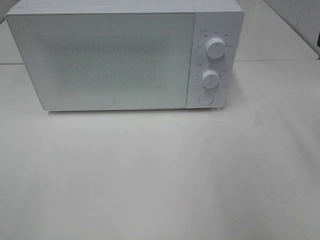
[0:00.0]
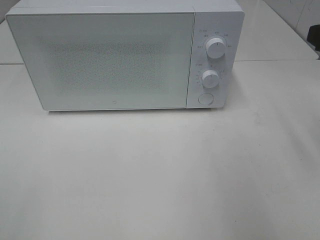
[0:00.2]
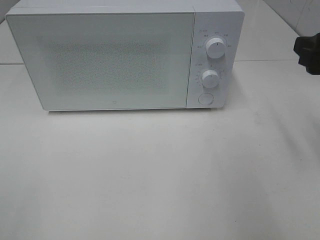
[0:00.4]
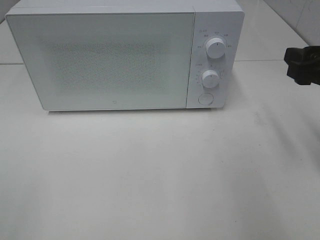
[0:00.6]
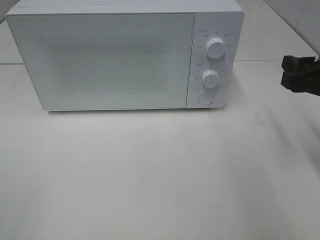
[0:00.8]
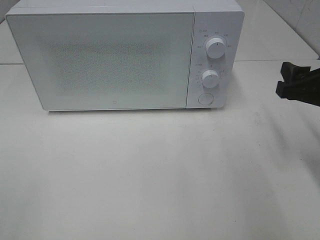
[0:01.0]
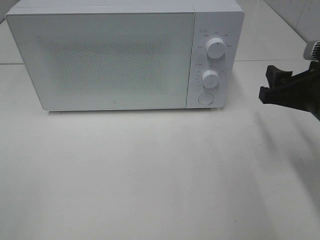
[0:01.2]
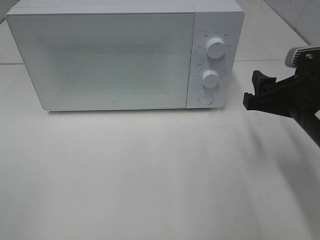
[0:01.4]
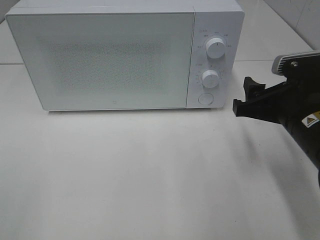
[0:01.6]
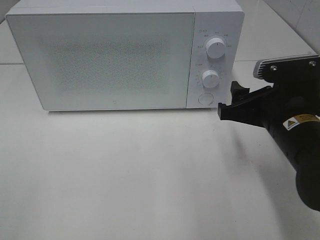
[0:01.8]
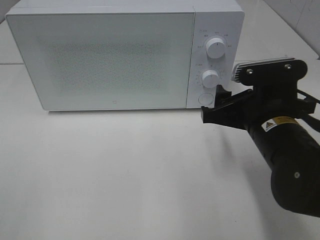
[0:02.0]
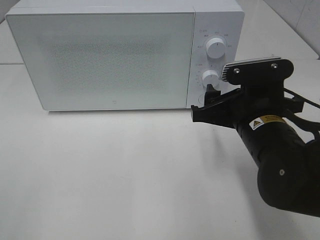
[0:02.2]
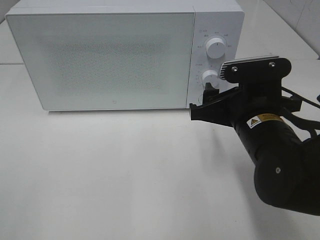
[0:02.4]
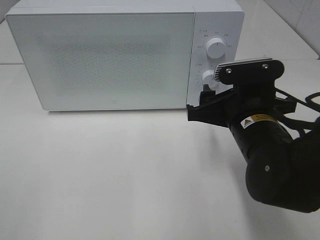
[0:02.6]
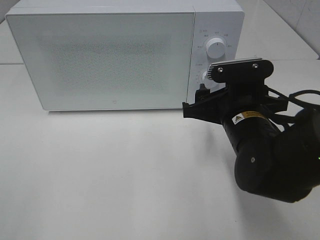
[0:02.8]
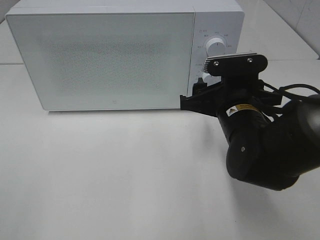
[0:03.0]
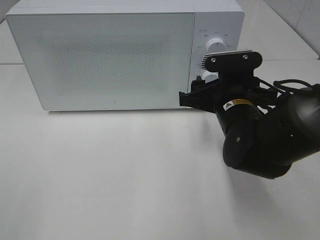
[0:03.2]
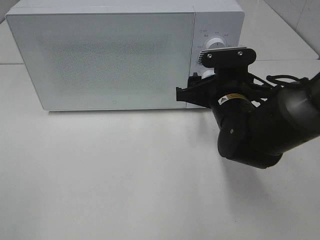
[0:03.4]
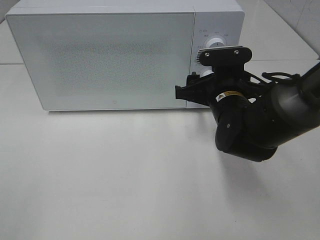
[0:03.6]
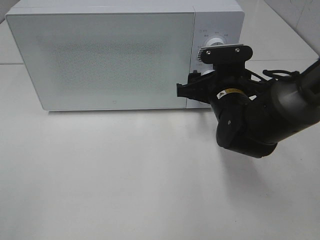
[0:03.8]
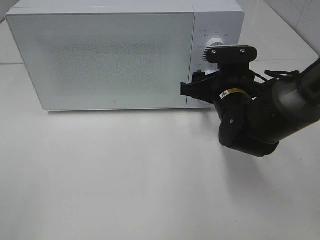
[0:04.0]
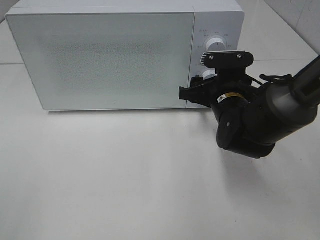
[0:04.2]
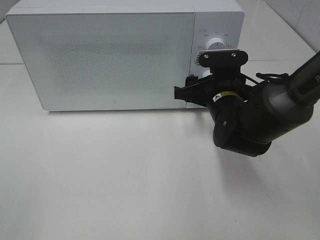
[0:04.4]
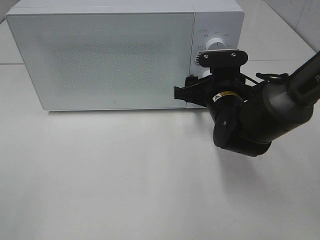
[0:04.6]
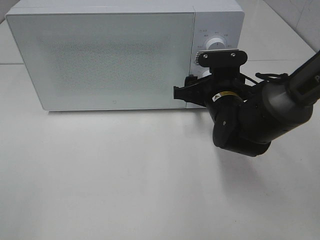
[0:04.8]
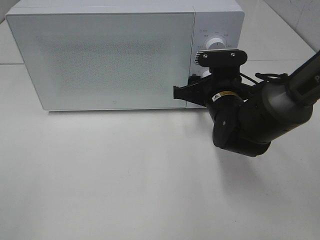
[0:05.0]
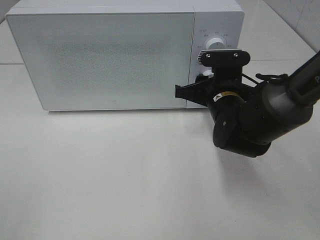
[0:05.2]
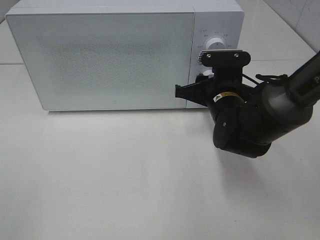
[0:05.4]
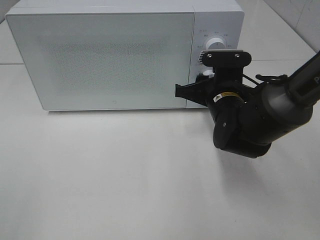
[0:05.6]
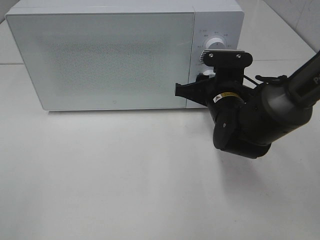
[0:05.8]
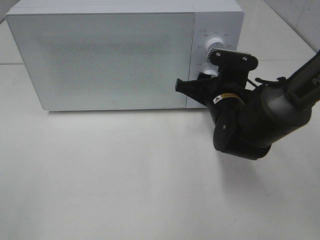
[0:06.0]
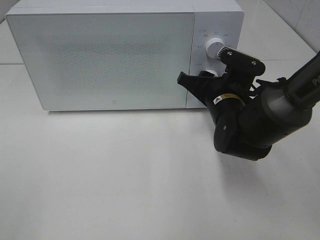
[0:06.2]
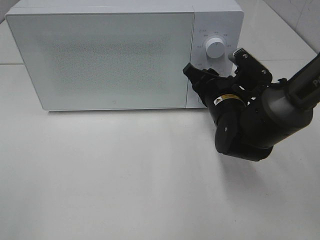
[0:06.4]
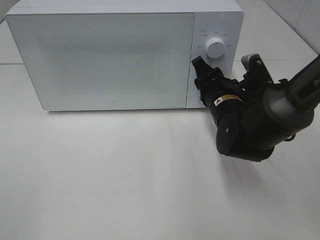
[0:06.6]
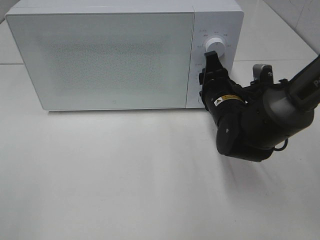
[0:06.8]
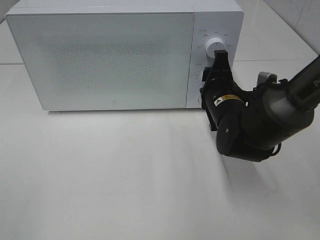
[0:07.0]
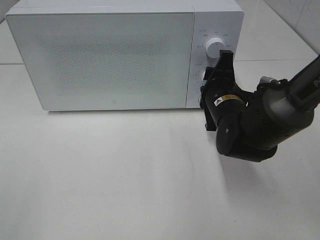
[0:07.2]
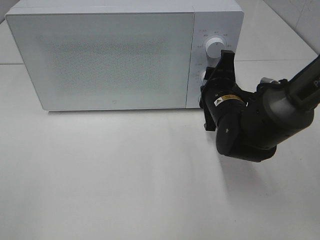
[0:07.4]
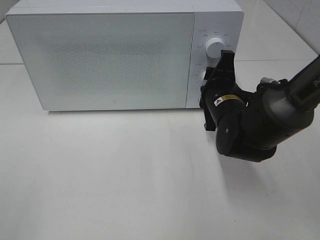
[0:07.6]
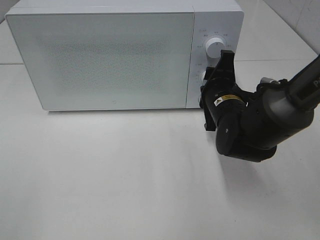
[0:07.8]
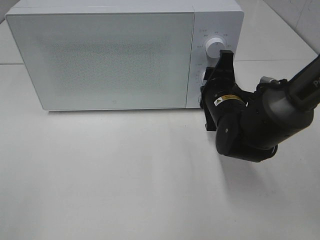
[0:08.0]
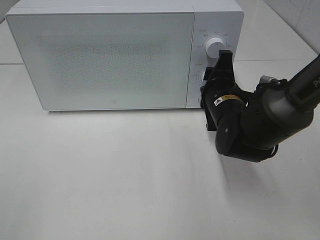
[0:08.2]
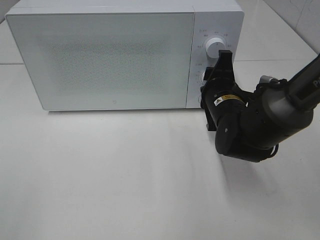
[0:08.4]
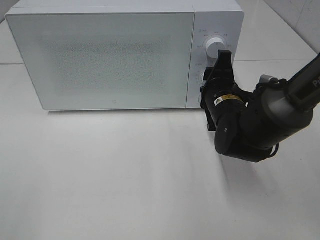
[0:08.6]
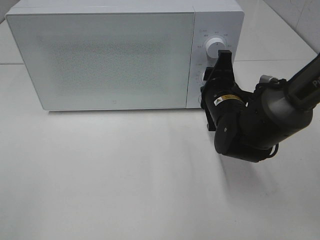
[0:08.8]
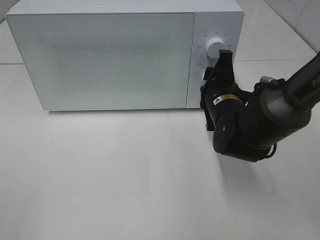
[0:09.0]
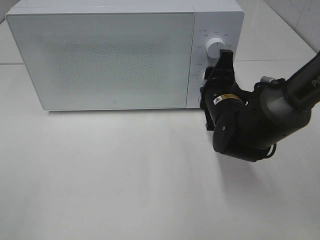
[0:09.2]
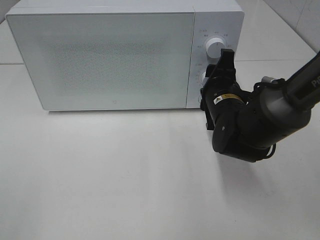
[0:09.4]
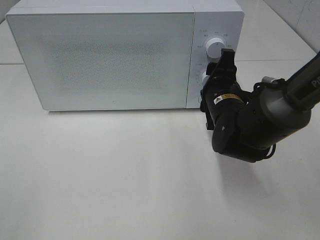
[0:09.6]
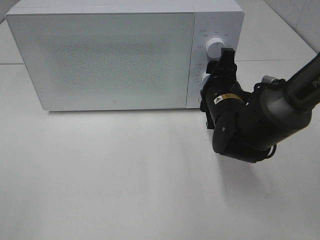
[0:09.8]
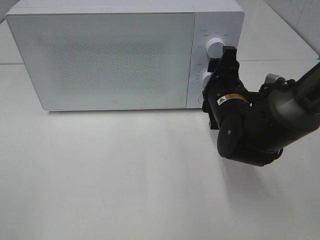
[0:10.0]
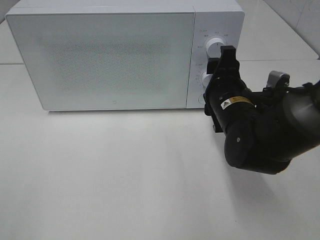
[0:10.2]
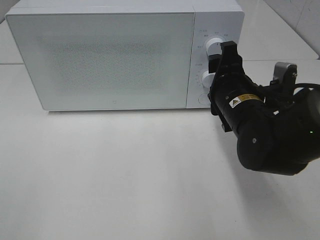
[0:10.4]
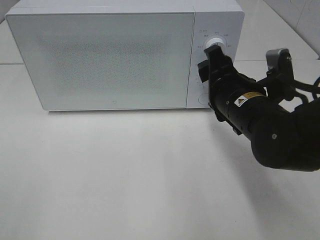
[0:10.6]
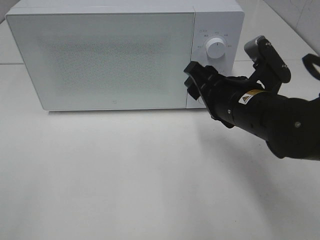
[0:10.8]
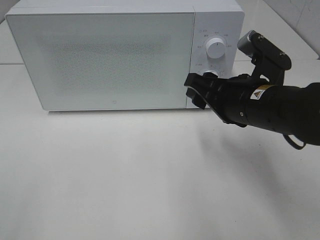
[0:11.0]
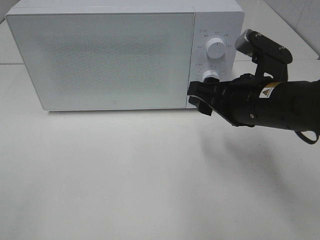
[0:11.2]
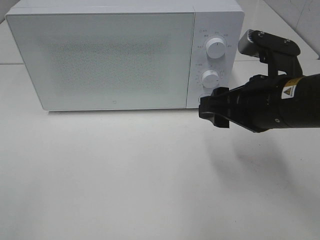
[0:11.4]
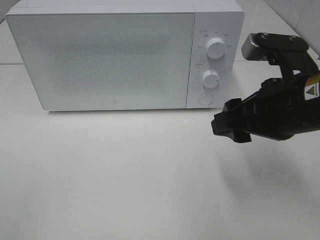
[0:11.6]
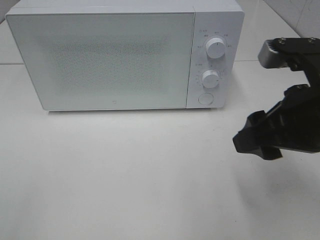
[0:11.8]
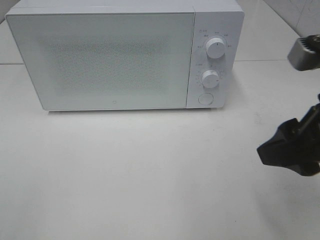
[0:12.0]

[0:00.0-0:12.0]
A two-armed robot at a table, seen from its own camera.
Task of the whole recording: Heat the burger.
Step, 0:00.0 to 0:09.4: Right hand: twist timer button.
0:00.0 to 0:01.6: The right gripper heads downward and to the left, covering about 15 cm.
0:01.6 to 0:03.0: The right gripper is displaced to the left by roughly 5 cm.
0:03.0 to 0:04.4: The right gripper goes about 5 cm forward.
0:04.4 to 0:06.0: The grippers stay close to where they were, moving slightly.
0:07.6 to 0:09.0: Both grippers stay put.
0:09.0 to 0:10.4: The right gripper moves roughly 5 cm.
0:10.4 to 0:12.0: The right gripper heads backward, upward and to the right, covering about 20 cm.

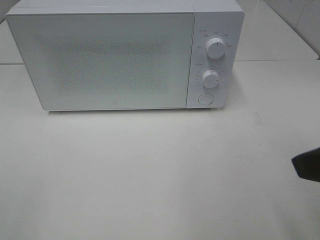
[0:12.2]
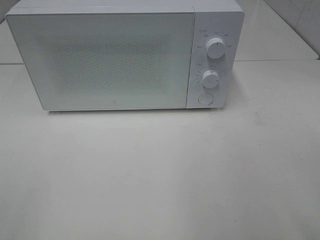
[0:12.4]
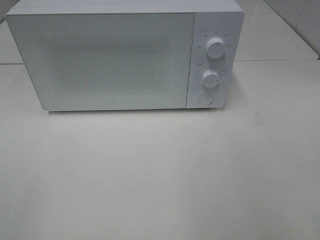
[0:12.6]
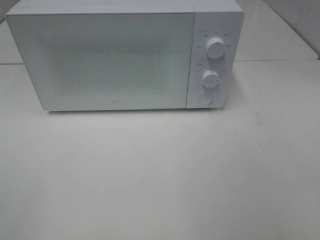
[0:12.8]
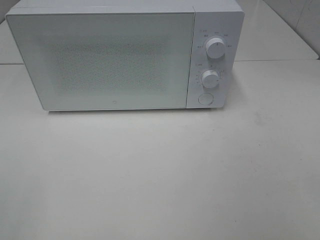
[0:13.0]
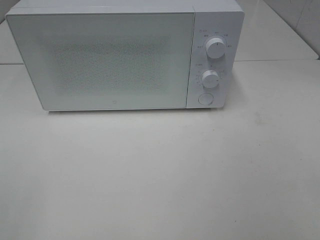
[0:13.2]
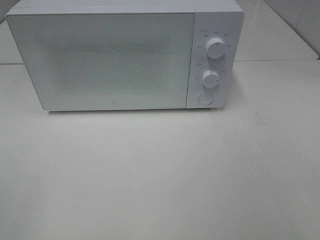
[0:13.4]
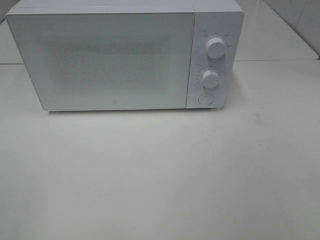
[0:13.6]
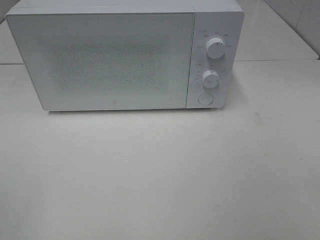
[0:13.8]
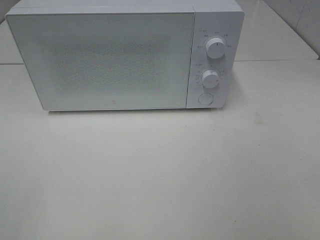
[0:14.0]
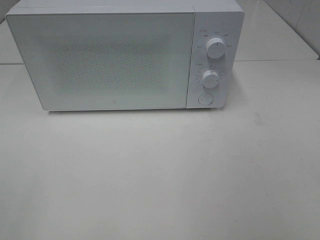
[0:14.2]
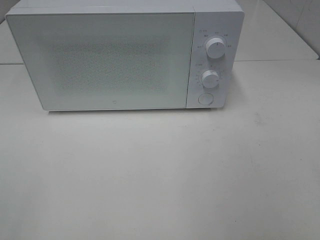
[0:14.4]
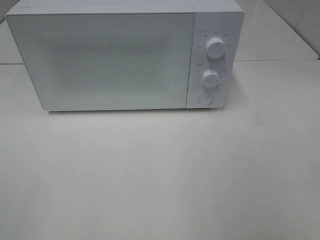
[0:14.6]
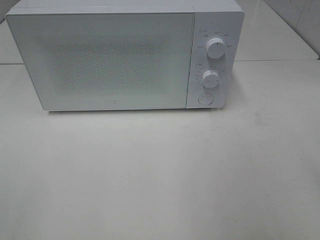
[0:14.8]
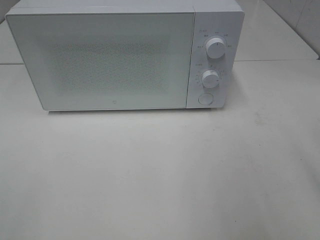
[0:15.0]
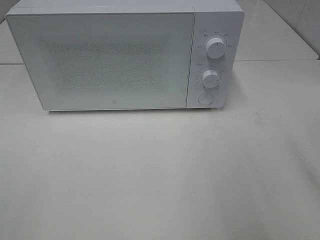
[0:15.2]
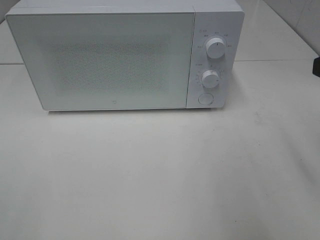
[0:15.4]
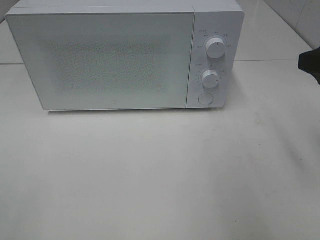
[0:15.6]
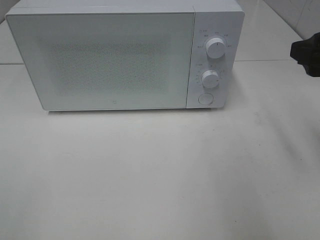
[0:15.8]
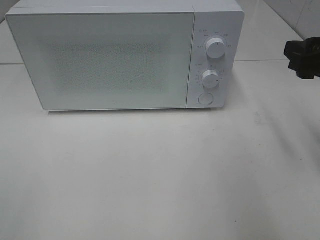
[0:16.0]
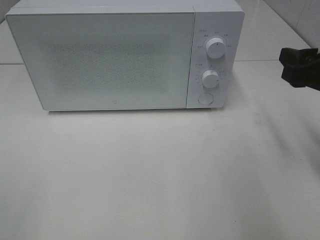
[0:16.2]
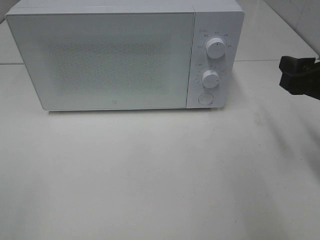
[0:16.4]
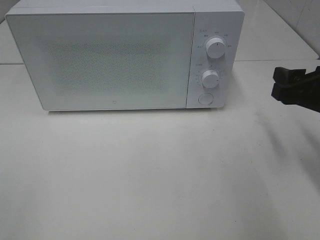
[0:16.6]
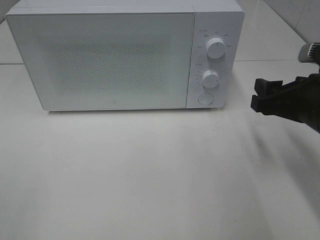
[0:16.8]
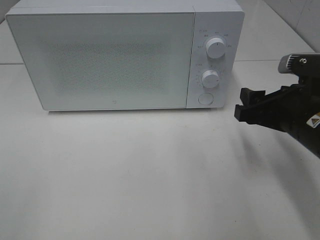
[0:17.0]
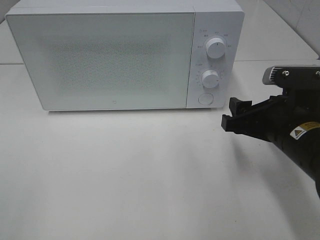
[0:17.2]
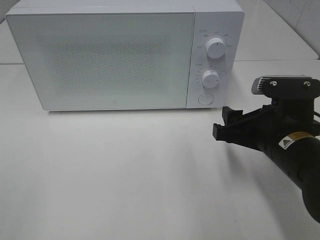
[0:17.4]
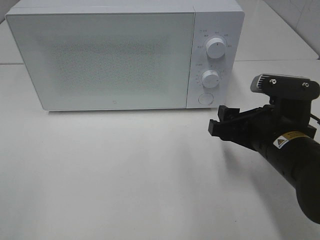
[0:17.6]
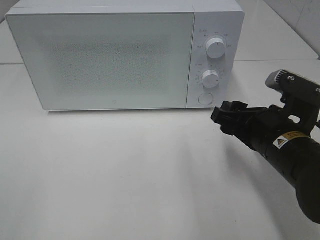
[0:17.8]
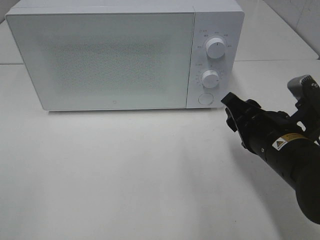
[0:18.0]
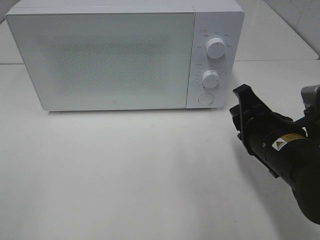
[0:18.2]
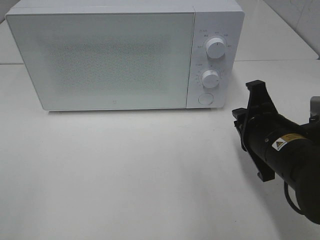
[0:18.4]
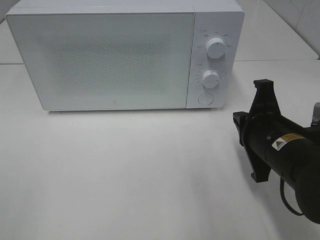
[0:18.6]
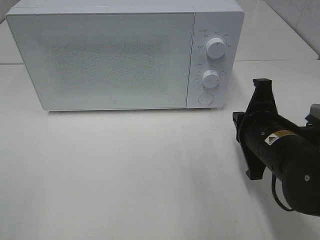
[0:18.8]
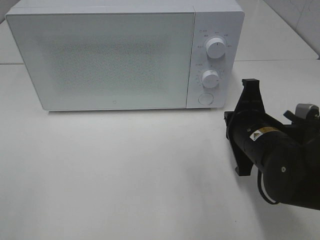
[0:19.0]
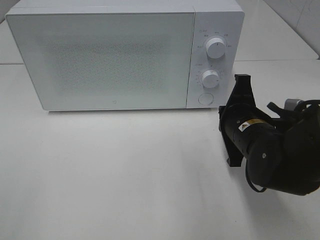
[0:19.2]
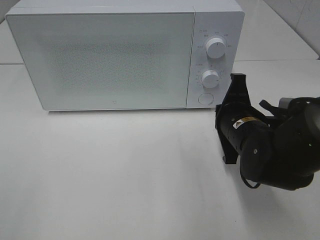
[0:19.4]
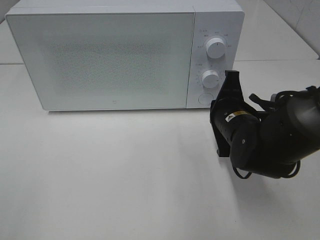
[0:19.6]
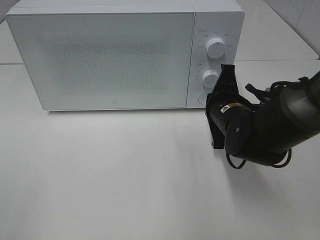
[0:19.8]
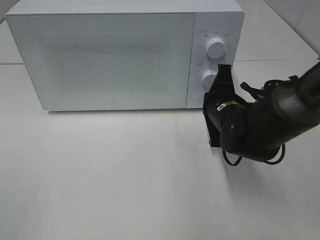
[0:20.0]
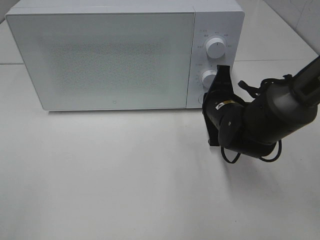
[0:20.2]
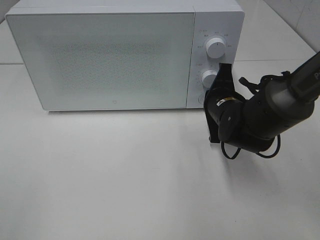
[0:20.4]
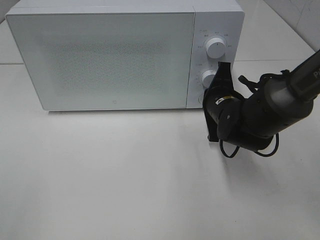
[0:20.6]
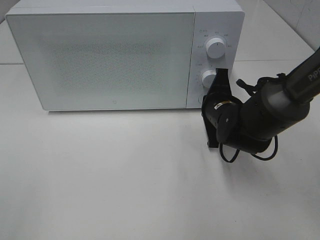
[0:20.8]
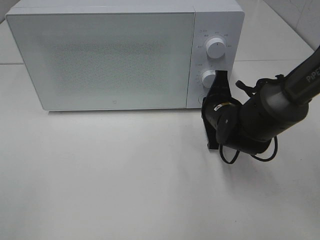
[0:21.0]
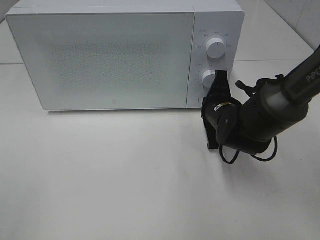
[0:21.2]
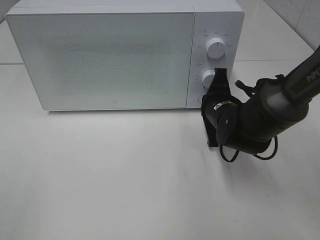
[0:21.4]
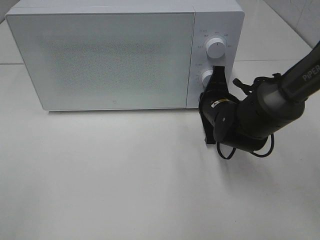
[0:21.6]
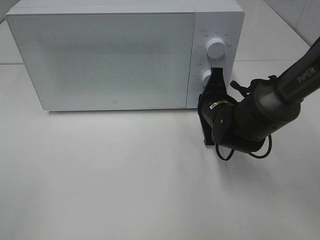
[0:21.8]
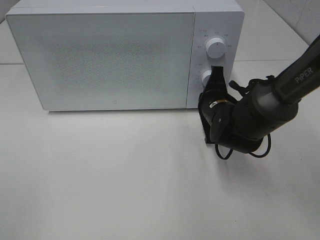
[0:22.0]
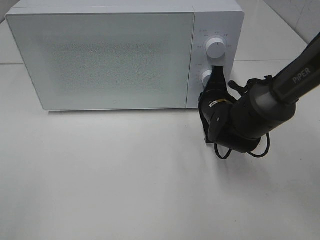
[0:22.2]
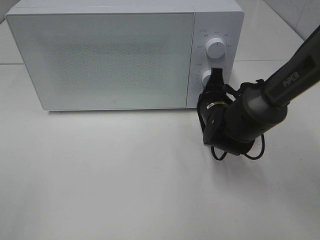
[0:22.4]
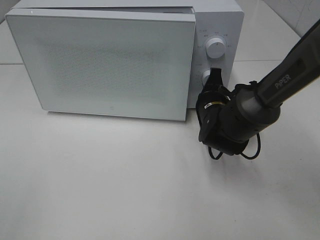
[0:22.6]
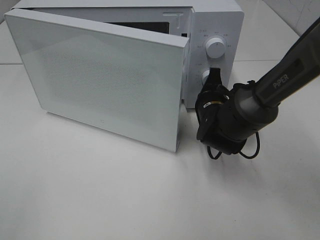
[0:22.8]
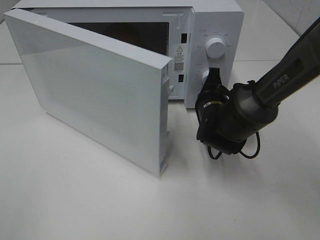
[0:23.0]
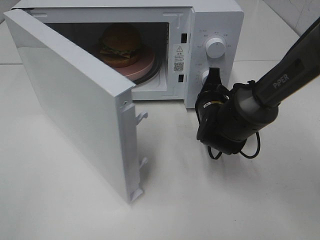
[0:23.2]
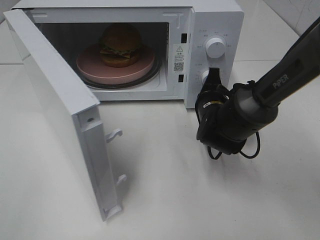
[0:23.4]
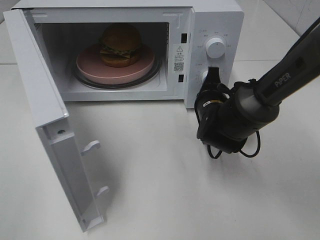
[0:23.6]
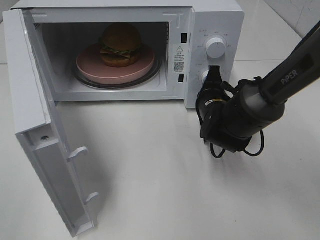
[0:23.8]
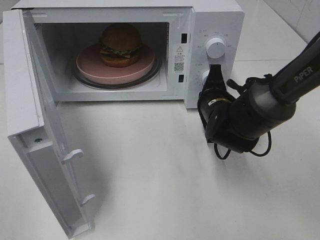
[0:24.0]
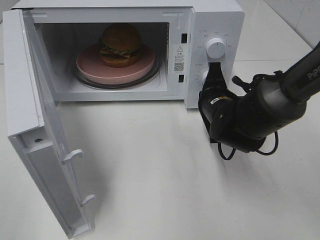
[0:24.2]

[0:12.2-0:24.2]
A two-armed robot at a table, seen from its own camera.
Task of the whole recording: Heat the burger.
Step, 0:12.2 to 0:24.2: Right hand: press the switch.
0:12.2 to 0:13.8: The right gripper travels backward and to the right by some 15 cm.
0:15.2 to 0:16.6: The right gripper is displaced downward and forward by approximately 10 cm.
0:16.6 to 0:18.2: The right gripper moves to the left and downward, approximately 10 cm, and closes its fingers.
0:18.2 to 0:19.8: The right gripper goes about 10 cm forward, and closes up.
0:19.8 to 0:22.6: The grippers make only small movements.
